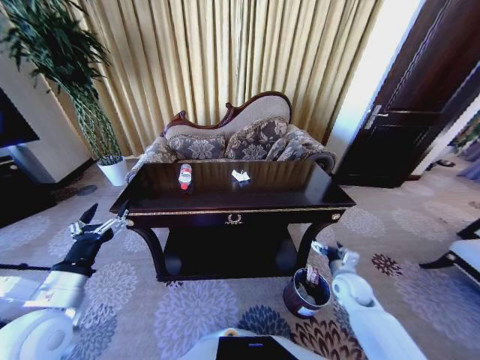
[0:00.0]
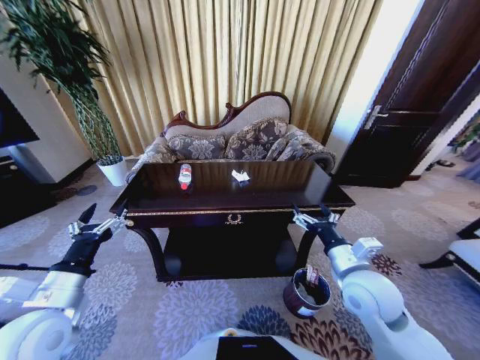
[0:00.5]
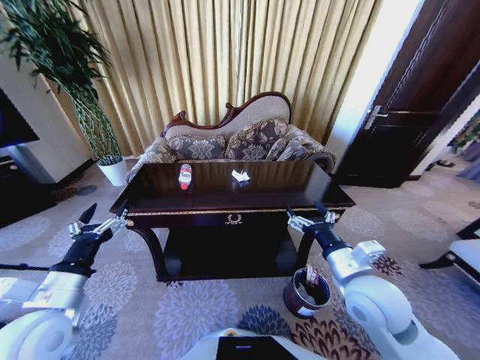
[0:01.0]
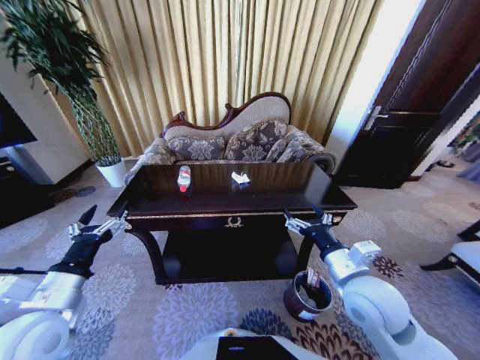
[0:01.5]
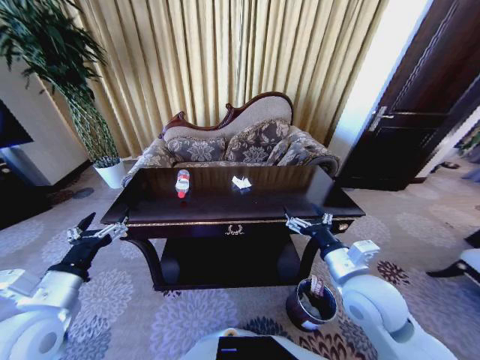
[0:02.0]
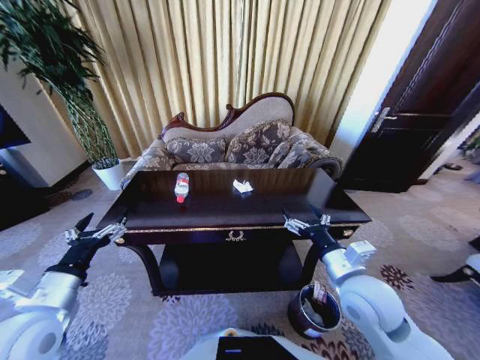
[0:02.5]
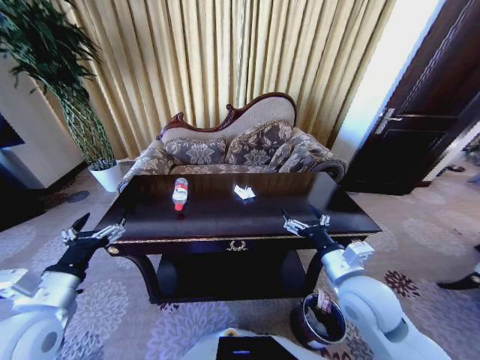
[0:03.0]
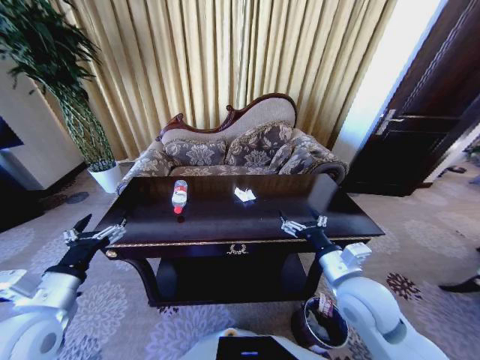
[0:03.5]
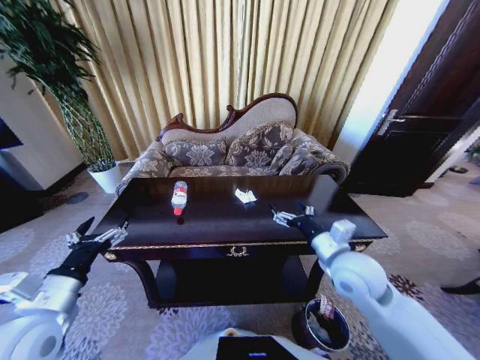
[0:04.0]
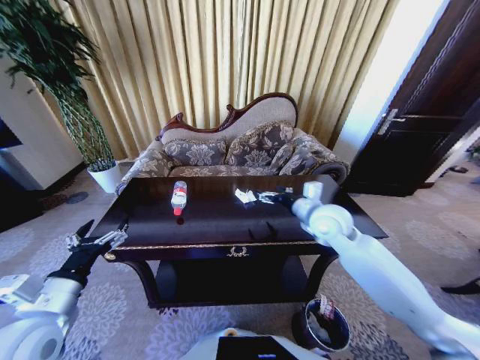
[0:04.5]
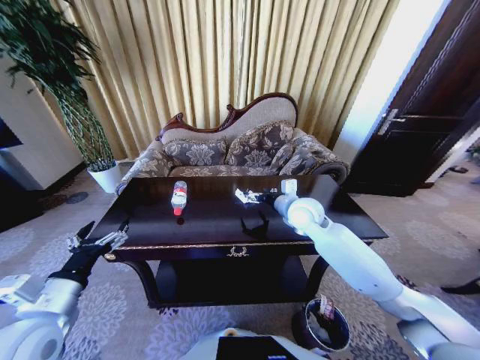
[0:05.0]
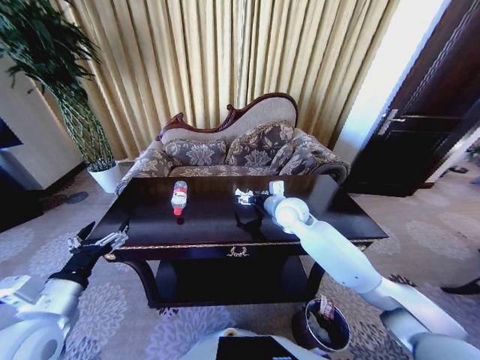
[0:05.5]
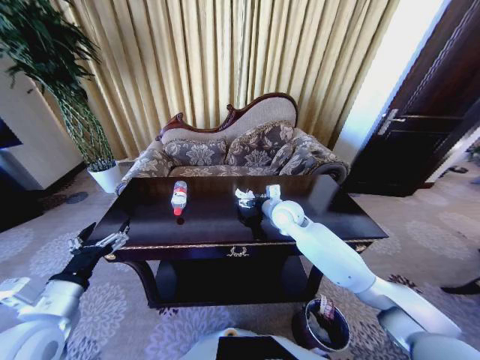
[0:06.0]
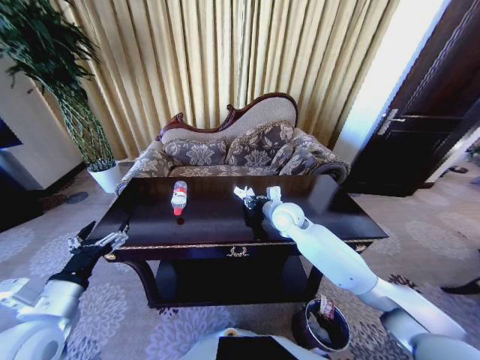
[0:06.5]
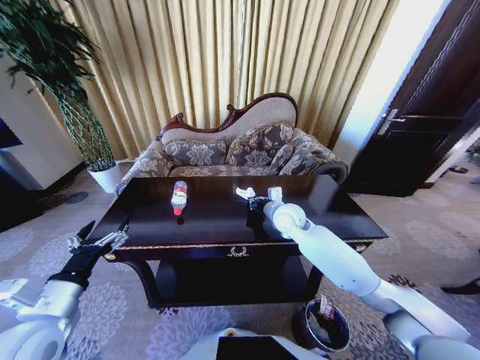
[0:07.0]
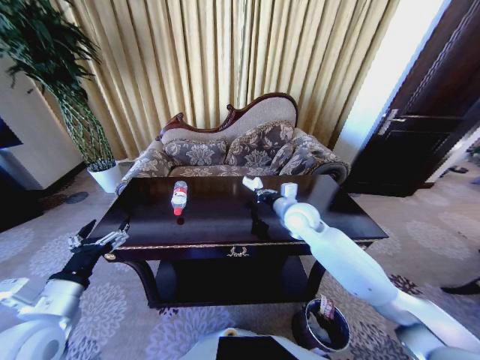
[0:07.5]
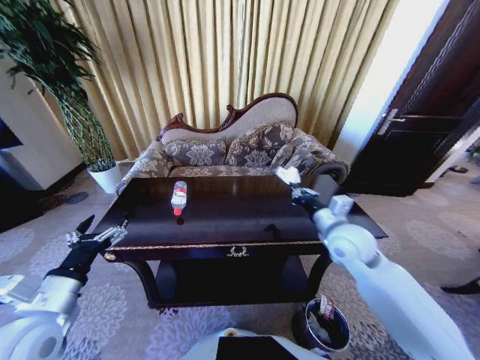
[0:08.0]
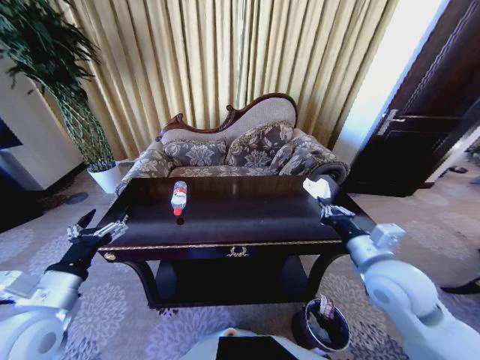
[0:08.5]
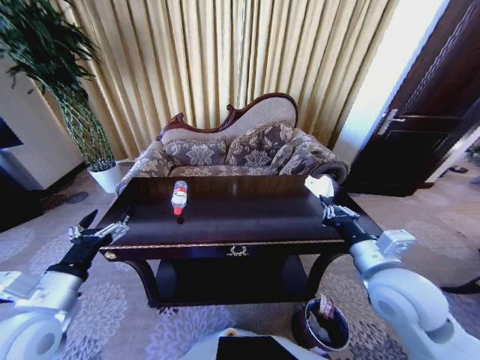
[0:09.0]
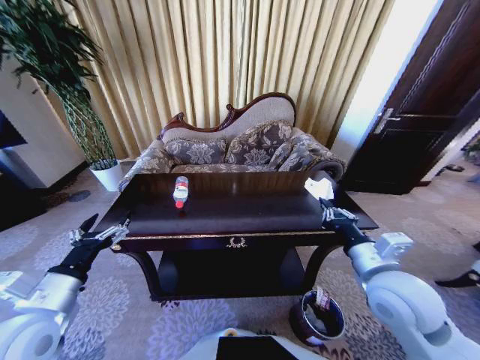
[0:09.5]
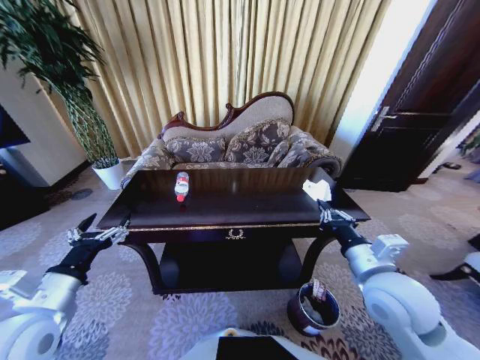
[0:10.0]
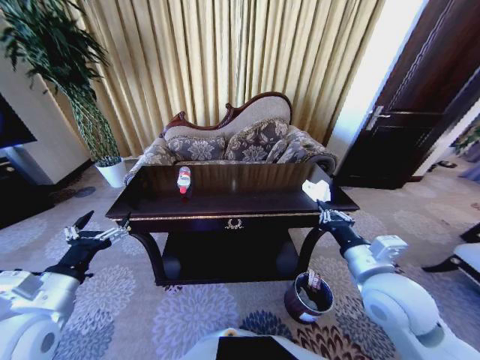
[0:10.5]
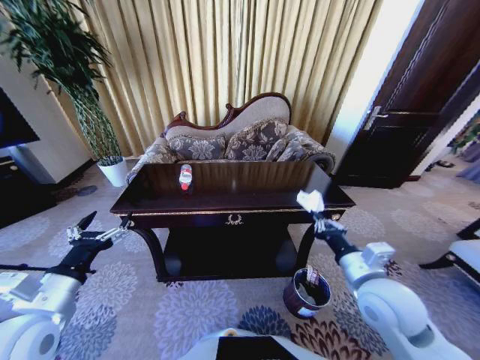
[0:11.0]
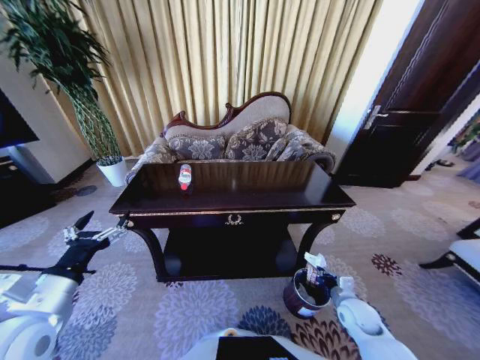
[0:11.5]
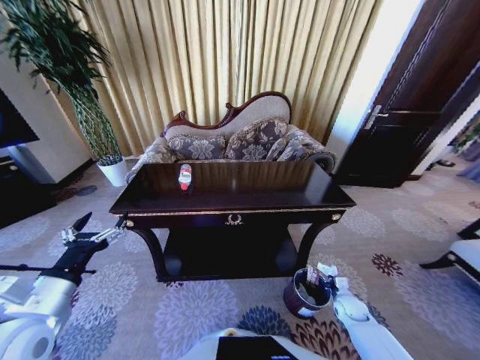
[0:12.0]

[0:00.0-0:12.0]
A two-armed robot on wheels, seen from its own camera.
Task of the whole recording: Move to the front of the table and place the trash on the table into the trash bin.
0:00.0 to 0:02.0: The right gripper heads upward and to the left, covering about 25 cm.
0:02.0 to 0:04.0: The right gripper is displaced forward by approximately 5 cm.
0:04.0 to 0:06.0: The right gripper goes some 20 cm forward and to the left.
0:06.0 to 0:08.0: The right gripper goes approximately 15 cm backward and to the right, and closes.
0:08.0 to 0:10.0: The right gripper is displaced backward by some 15 cm.
0:10.0 to 0:12.0: The right gripper travels downward by approximately 35 cm.

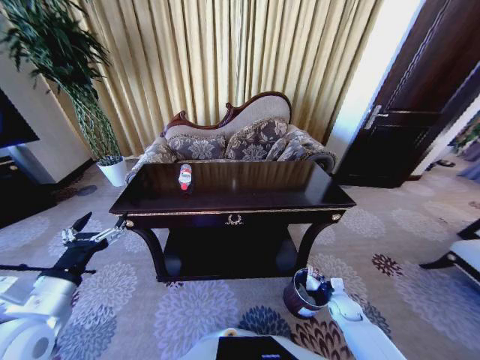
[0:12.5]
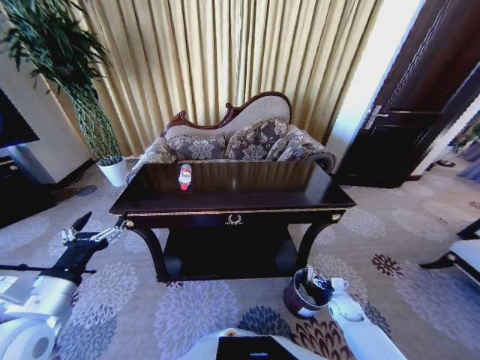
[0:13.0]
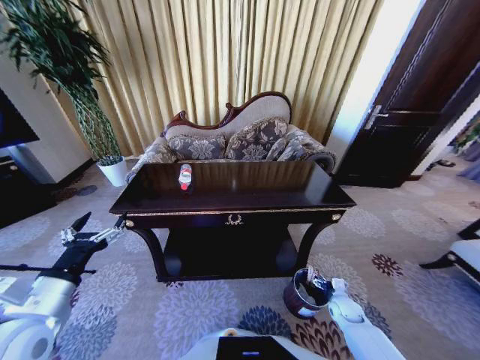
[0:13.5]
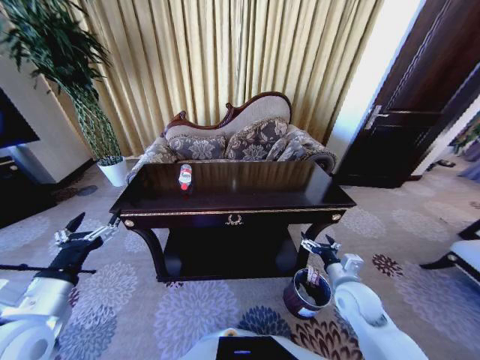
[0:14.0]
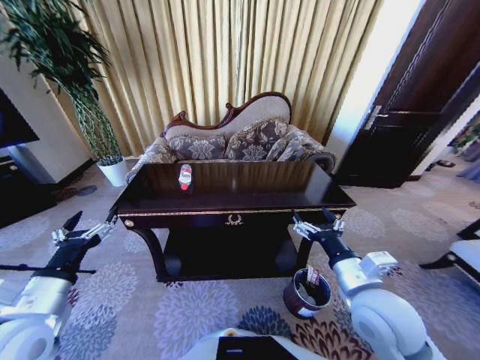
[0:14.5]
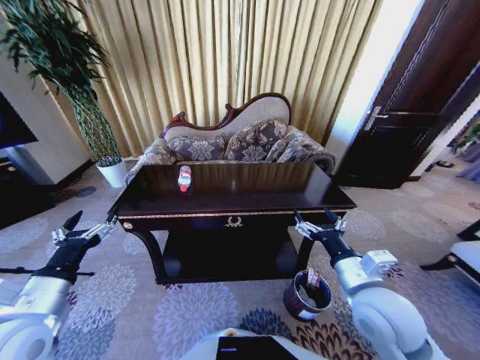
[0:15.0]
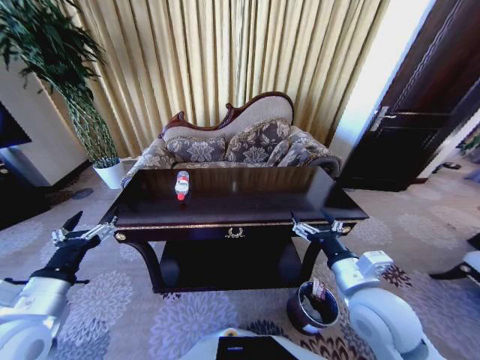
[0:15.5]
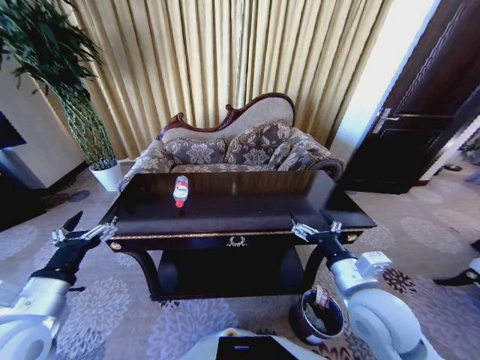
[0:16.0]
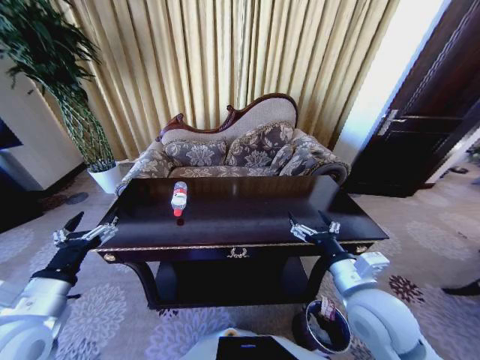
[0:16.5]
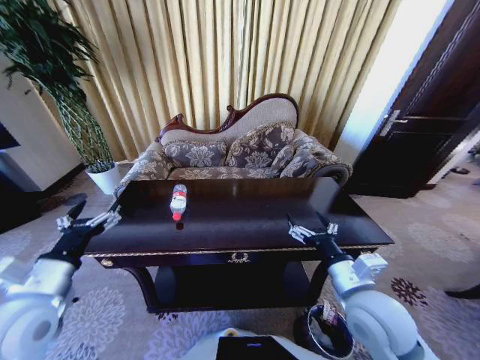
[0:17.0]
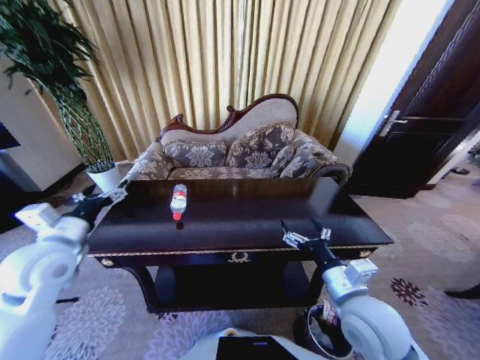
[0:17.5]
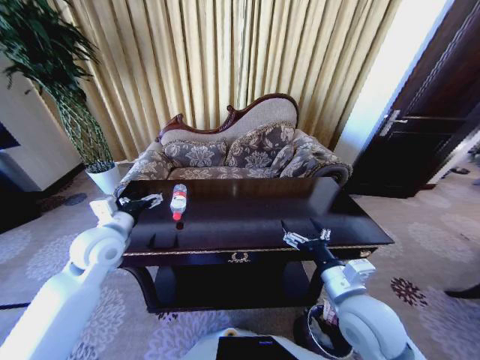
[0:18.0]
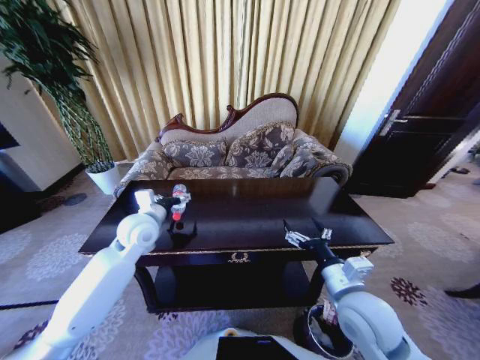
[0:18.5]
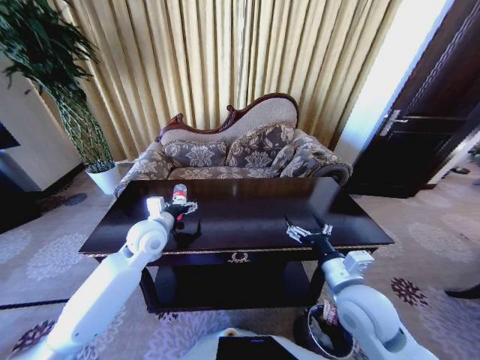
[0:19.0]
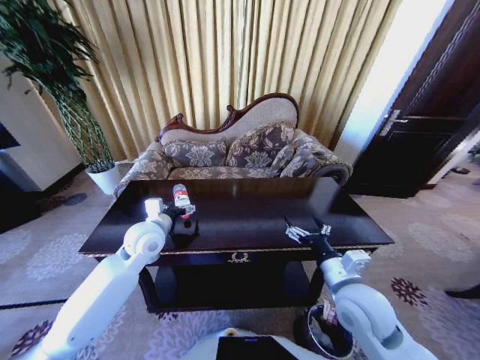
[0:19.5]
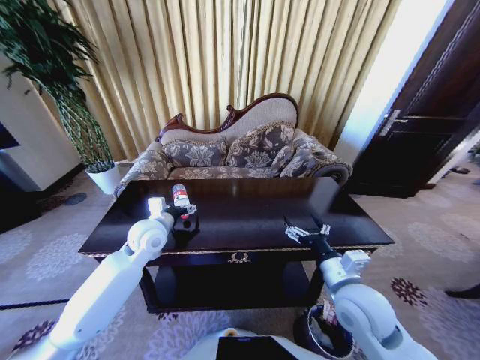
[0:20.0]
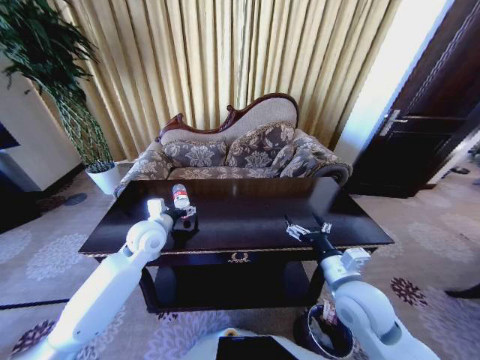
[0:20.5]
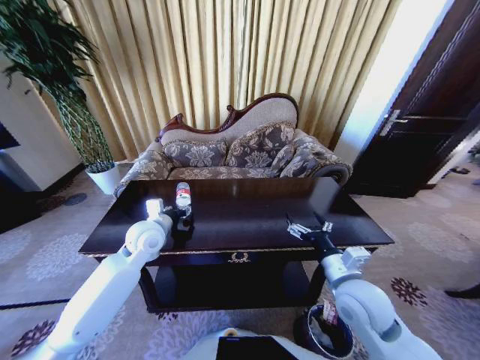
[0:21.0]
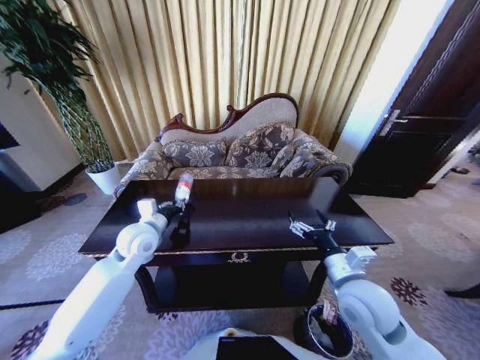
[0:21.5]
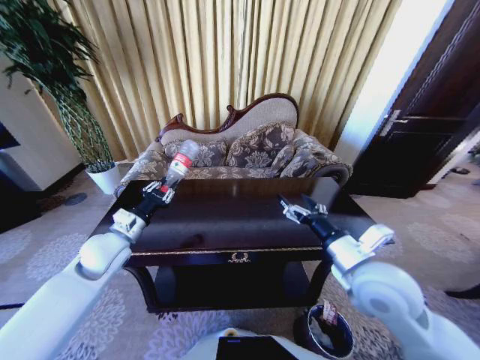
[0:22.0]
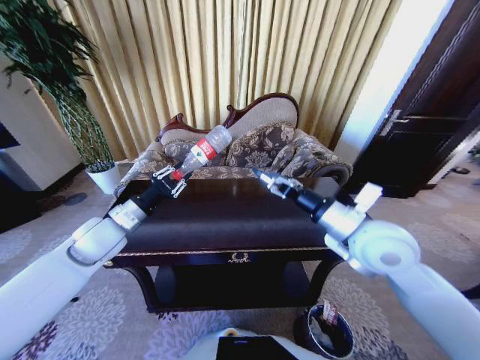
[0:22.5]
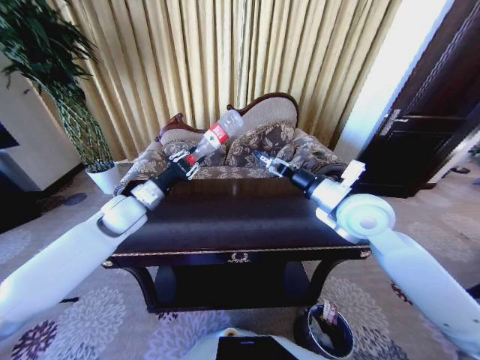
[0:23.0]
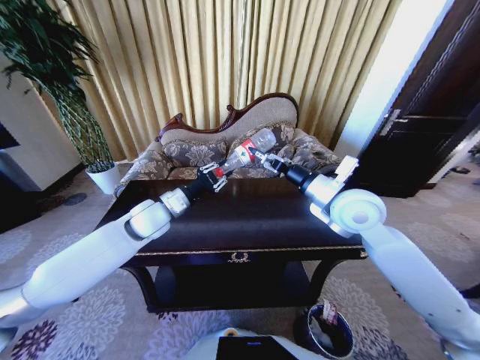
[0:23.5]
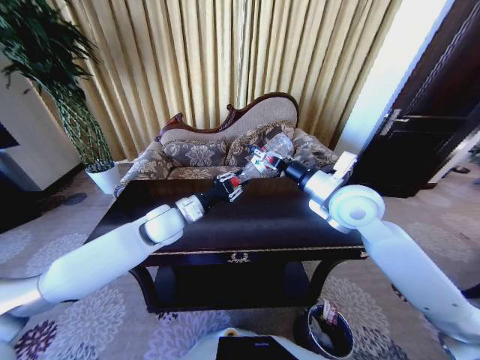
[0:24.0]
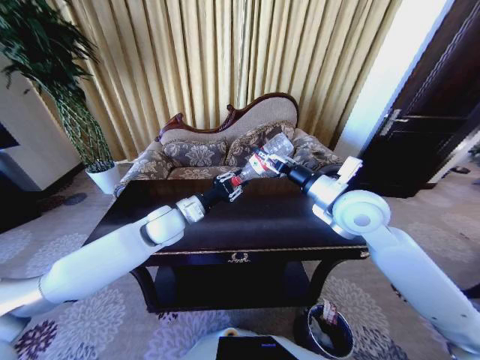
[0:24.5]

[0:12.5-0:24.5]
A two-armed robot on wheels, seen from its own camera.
Task of the whole recording: Move to the front of the table and place the trash on the table into the trash bin.
0:12.5 to 0:14.5: The right gripper goes about 35 cm upward and to the left, and opens.
0:16.5 to 0:18.5: The left gripper goes approximately 25 cm forward and to the right.
0:18.5 to 0:20.5: The grippers make only small movements.
0:20.5 to 0:22.5: The left gripper goes some 10 cm to the left and upward, and closes up. Meanwhile the right gripper shifts roughly 15 cm upward and forward.
0:22.5 to 0:24.5: The right gripper heads forward, covering about 10 cm, and closes. The left gripper is displaced to the right by about 15 cm.

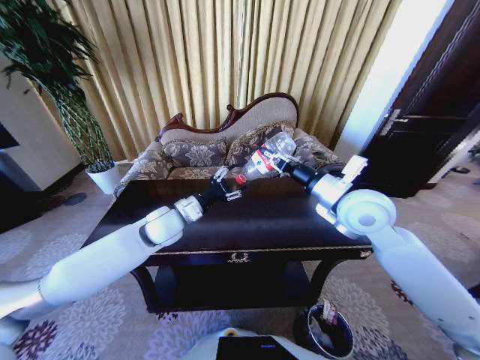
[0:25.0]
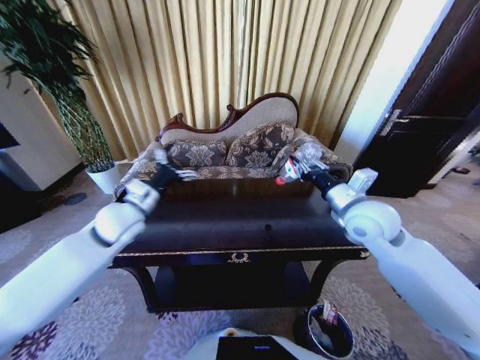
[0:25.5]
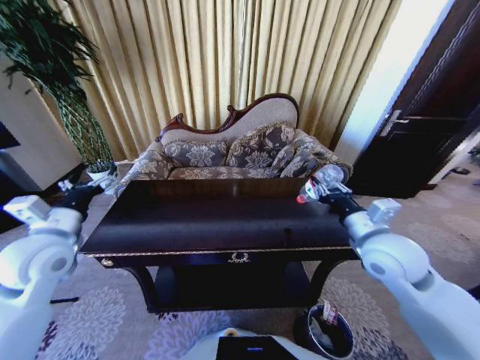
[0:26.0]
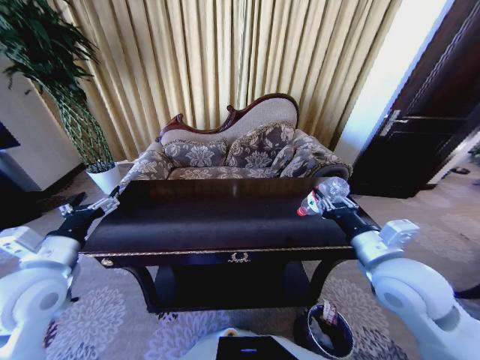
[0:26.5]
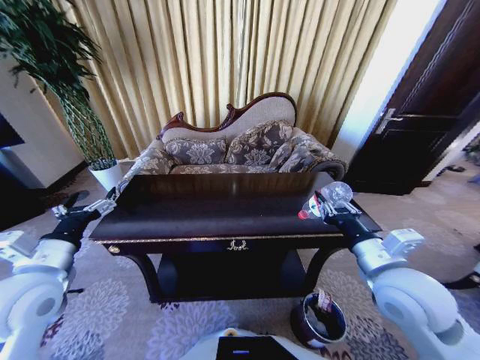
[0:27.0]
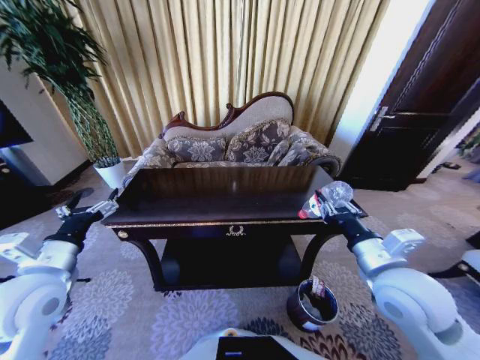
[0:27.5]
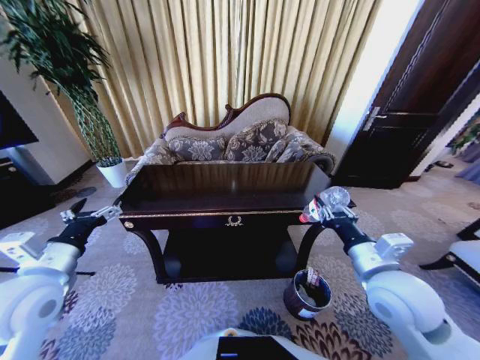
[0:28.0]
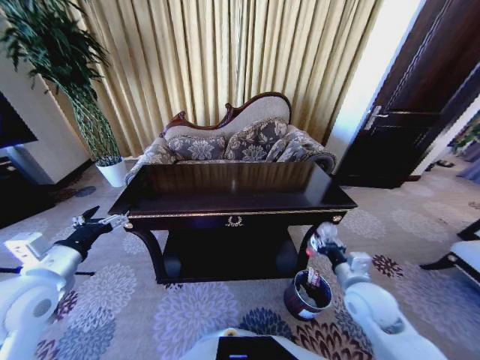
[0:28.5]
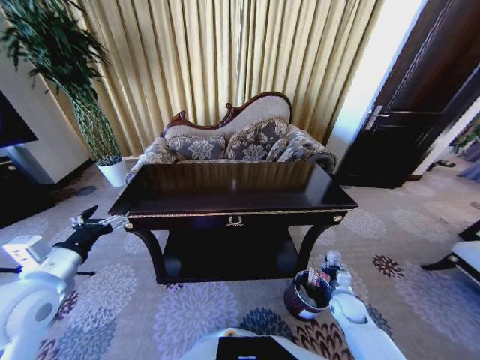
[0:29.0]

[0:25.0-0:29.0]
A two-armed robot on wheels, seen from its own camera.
Task of the whole recording: Move to the front of the table and place the trash on the table into the trash bin.
0:25.0 to 0:27.0: The right gripper shifts roughly 15 cm backward and downward, while the left gripper moves backward and to the left, about 25 cm, and opens.
0:27.0 to 0:29.0: The right gripper is displaced downward by about 35 cm.
